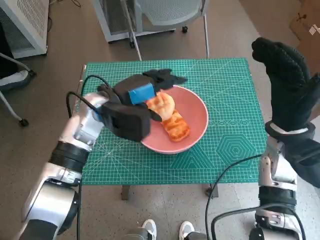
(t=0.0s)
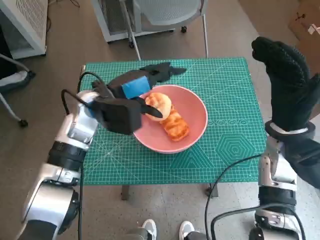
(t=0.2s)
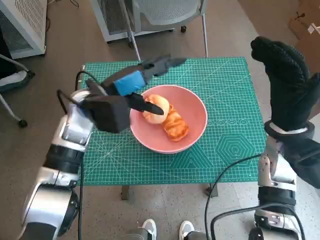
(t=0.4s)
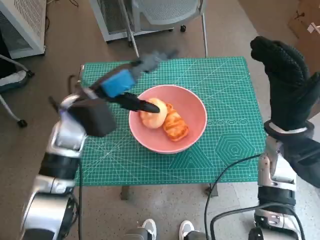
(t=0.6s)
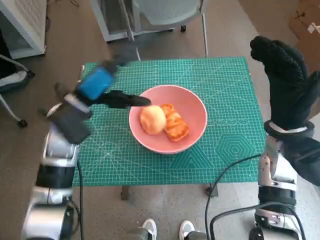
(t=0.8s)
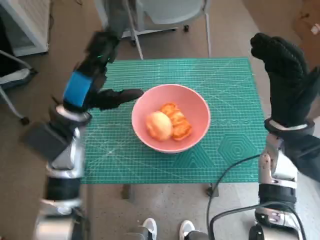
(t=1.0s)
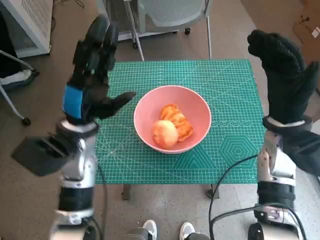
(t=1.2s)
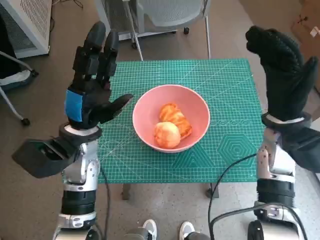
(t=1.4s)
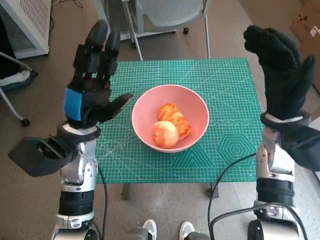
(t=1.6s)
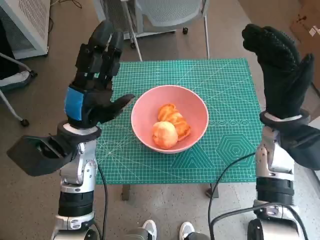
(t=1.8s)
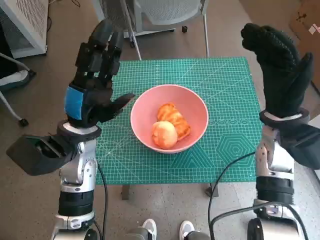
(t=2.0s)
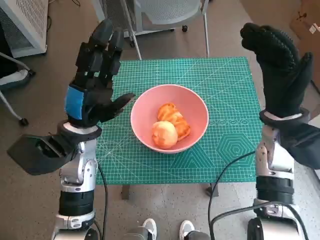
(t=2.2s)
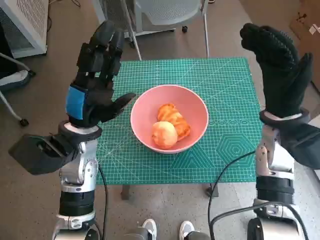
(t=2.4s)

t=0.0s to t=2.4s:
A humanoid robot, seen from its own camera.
t=0.0s to t=1.2s: The left hand shifts approximately 5 cm backward.
t=1.2s to t=2.4s: There are only small adjustments of the hands.

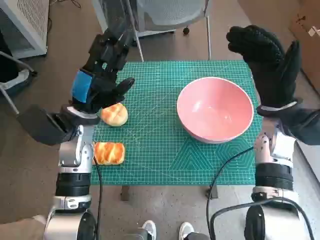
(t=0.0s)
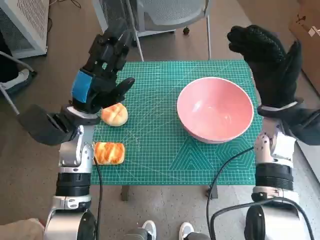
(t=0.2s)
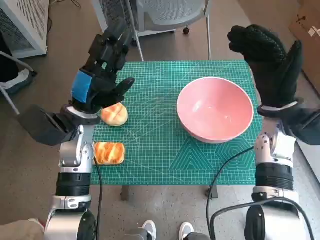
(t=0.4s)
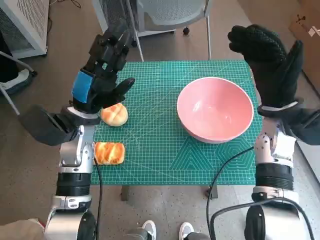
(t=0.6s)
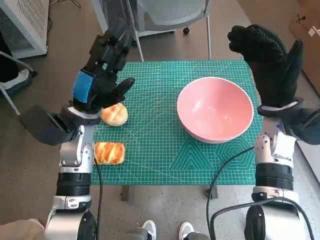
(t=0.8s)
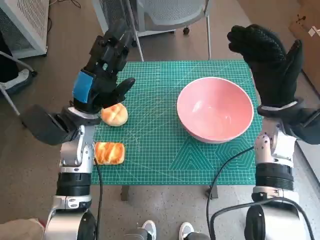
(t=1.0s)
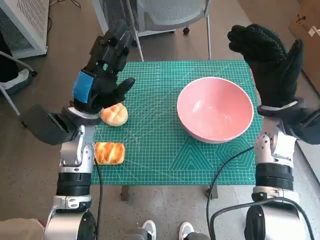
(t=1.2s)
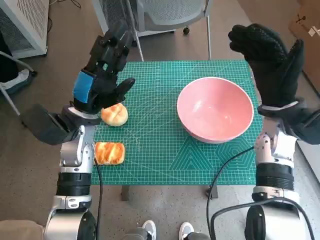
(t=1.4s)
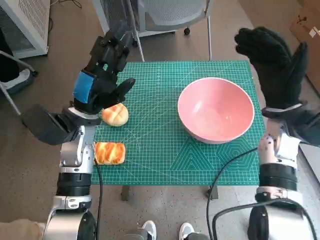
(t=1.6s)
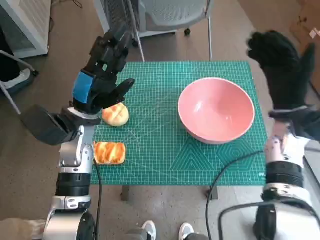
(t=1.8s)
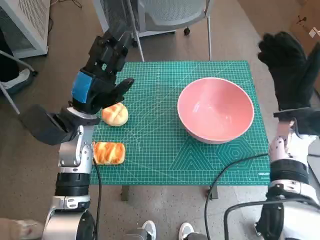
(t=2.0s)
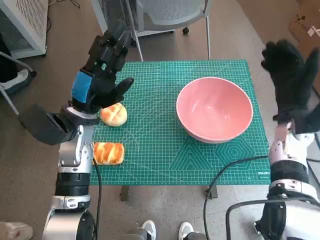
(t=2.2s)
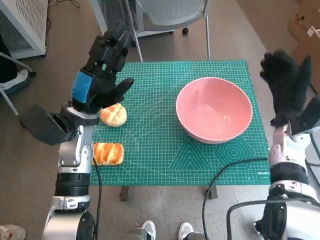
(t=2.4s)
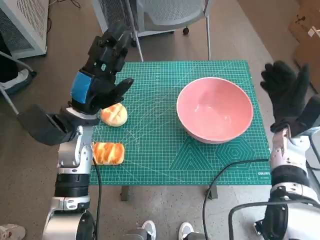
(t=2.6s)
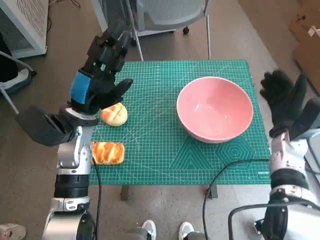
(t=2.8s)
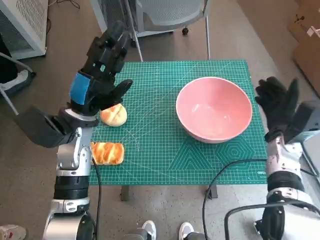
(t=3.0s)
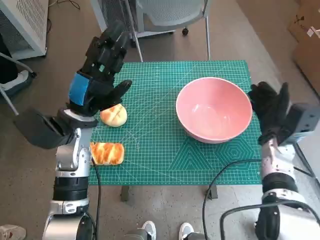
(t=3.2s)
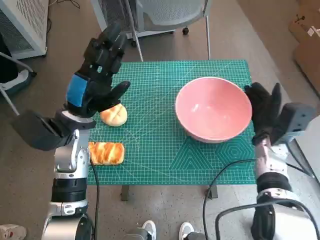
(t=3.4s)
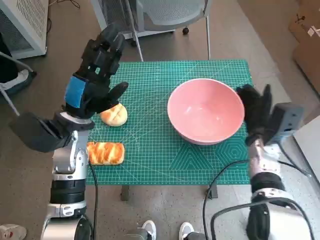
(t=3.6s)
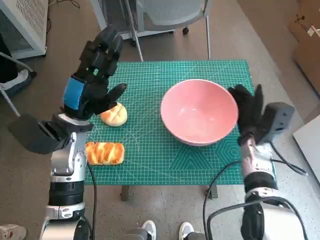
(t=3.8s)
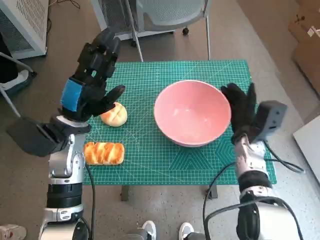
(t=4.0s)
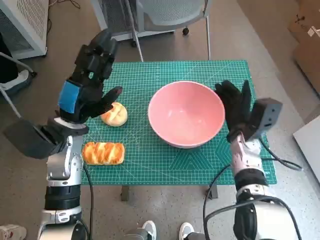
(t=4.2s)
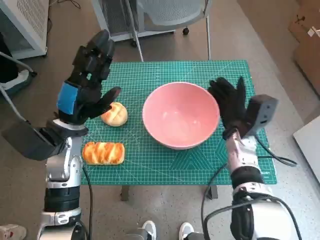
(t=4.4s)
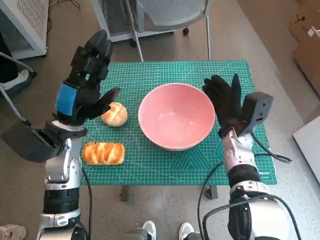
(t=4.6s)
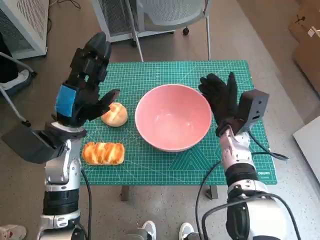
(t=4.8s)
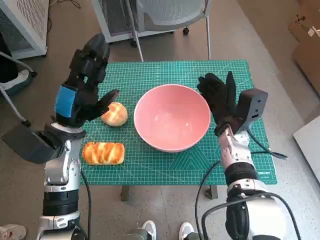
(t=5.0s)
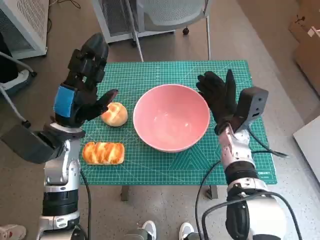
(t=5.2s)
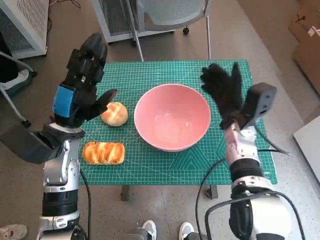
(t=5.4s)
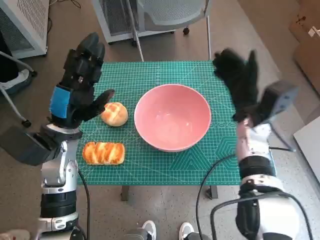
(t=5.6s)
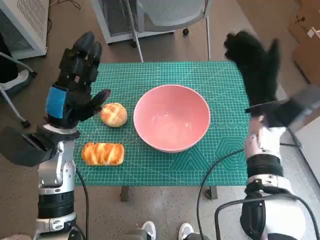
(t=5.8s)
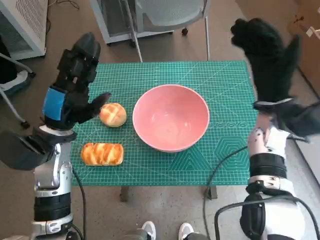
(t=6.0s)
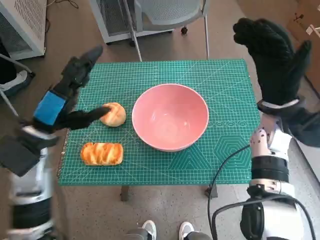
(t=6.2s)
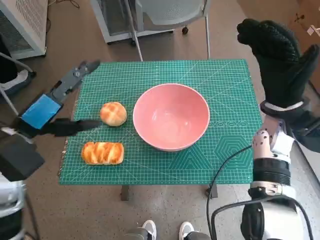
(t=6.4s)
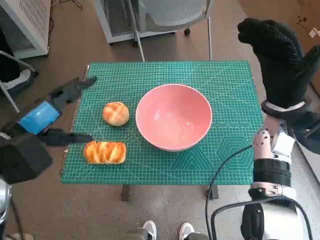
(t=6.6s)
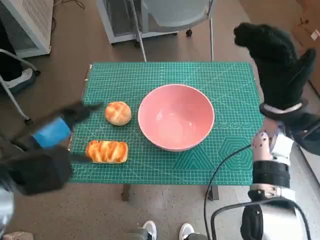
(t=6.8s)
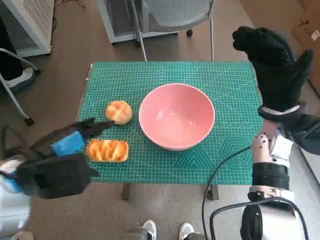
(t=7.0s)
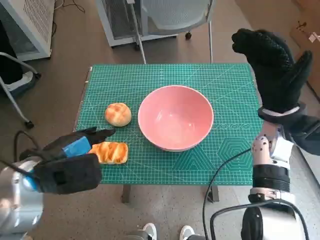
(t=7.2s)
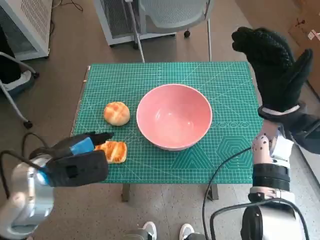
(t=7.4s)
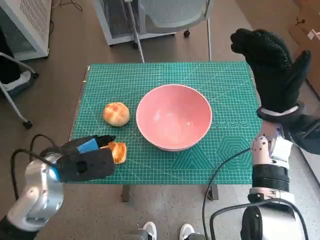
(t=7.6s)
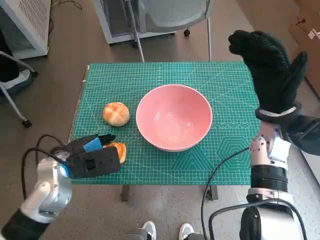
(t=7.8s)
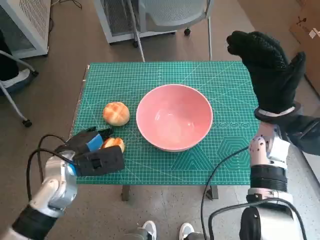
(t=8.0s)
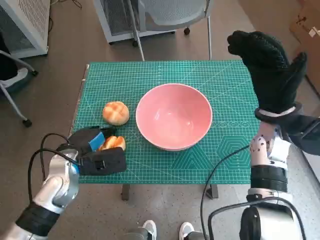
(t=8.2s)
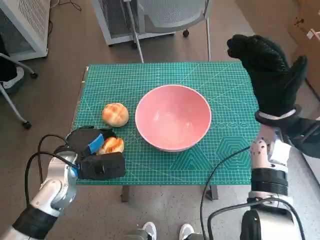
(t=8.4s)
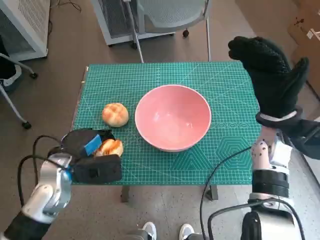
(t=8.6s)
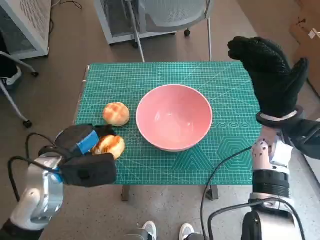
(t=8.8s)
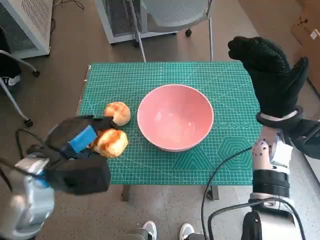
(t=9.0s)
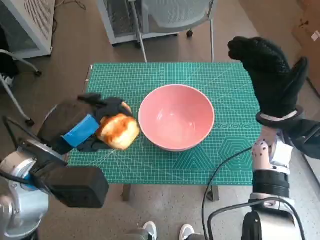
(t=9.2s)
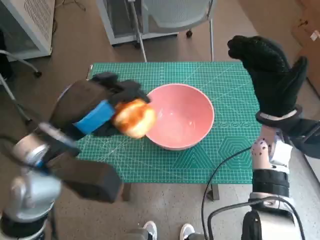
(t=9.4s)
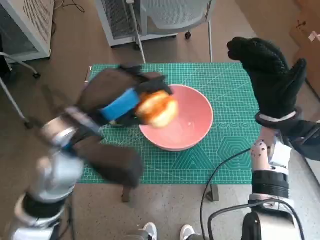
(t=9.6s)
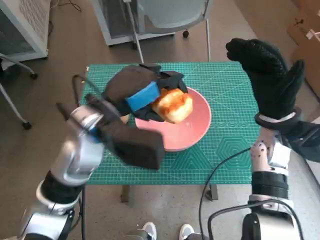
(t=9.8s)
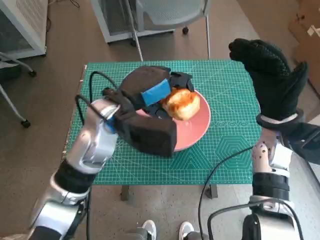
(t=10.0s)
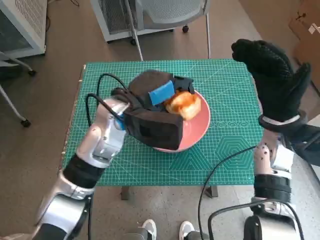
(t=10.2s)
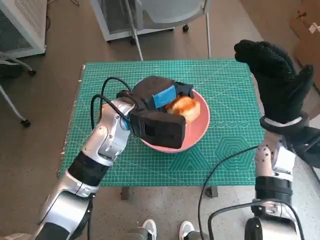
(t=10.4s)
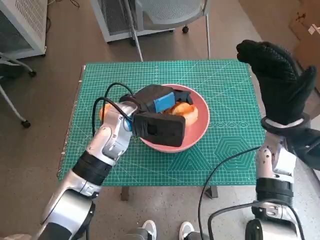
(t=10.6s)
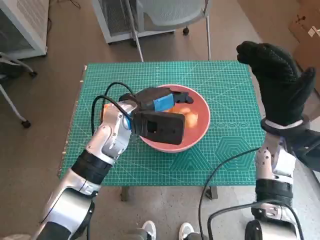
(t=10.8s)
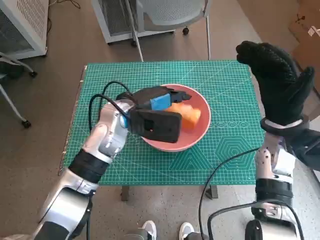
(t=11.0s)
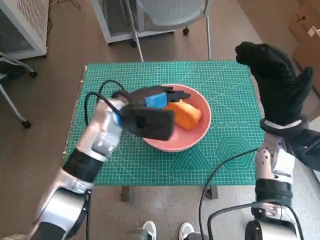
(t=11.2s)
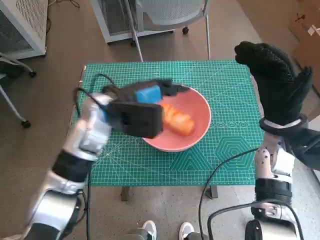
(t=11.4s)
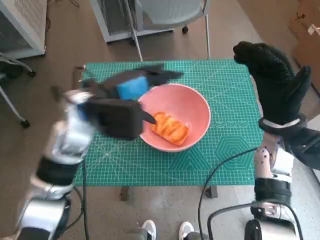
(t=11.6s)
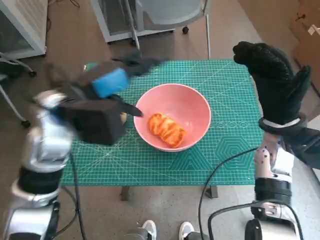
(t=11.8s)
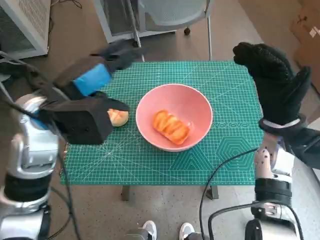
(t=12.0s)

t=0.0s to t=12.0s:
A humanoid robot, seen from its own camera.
Step, t=0.0s to t=5.2s: Move the pink bowl to the center of table with right hand.
Step, t=5.4s to t=8.2s: Grasp the long bread with left hand.
Step, t=8.4s to t=11.0s: Place the long bread in pink bowl with left hand.
t=1.6s to t=3.0s: The right hand travels downward by some 10 cm.
t=3.0s to t=4.4s: The right hand shifts about 10 cm to the left.
t=4.4s to t=6.0s: The right hand travels upward by roughly 10 cm.
t=6.0s to t=7.6s: The left hand reaches some 5 cm upward, then returns.
t=9.0s to t=10.4s: The left hand heads to the right and forward, covering approximately 15 cm.
t=10.4s to t=12.0s: The left hand travels to the left and upward by approximately 10 cm.

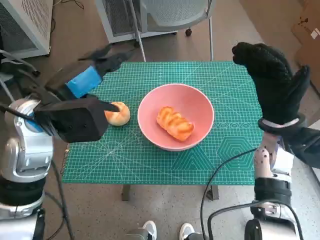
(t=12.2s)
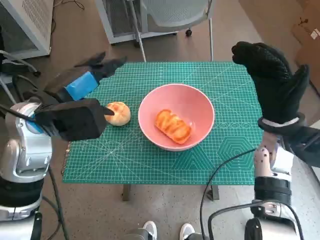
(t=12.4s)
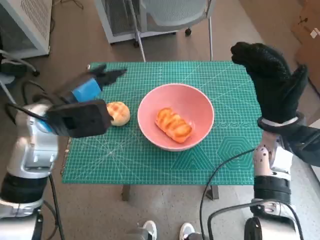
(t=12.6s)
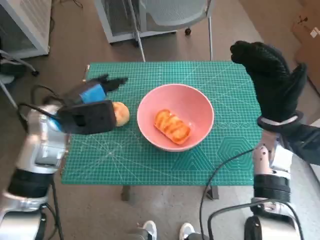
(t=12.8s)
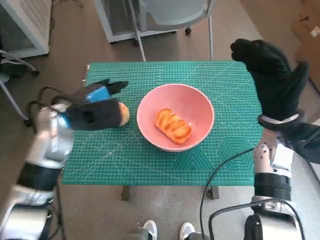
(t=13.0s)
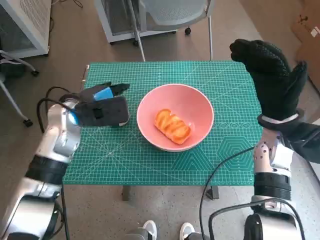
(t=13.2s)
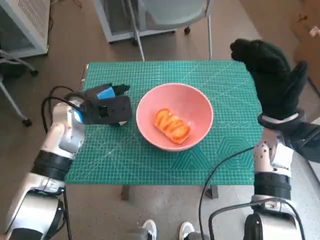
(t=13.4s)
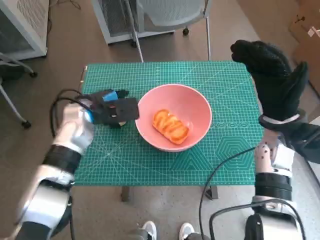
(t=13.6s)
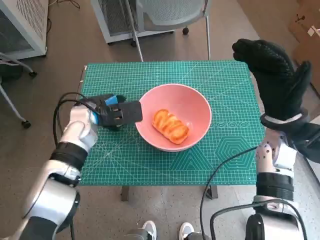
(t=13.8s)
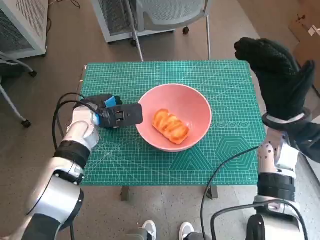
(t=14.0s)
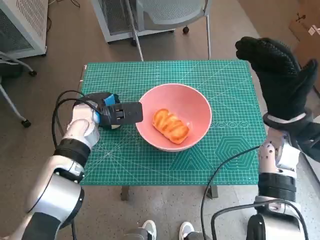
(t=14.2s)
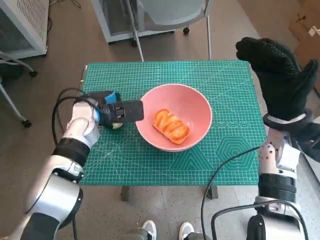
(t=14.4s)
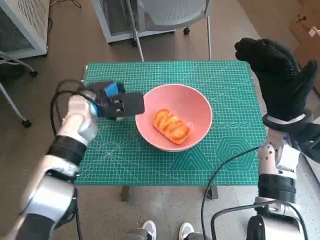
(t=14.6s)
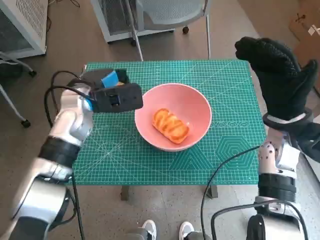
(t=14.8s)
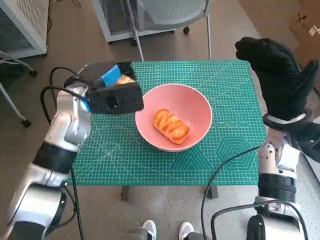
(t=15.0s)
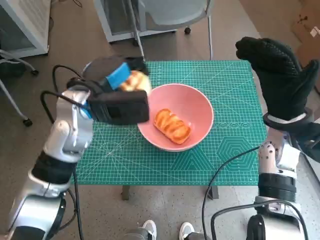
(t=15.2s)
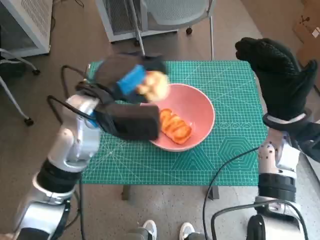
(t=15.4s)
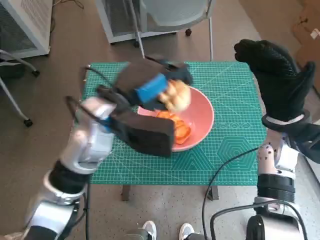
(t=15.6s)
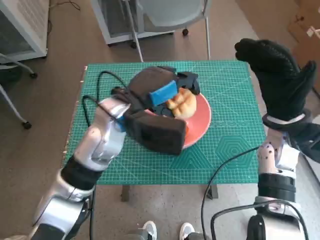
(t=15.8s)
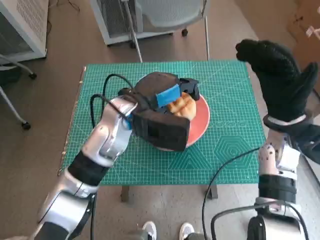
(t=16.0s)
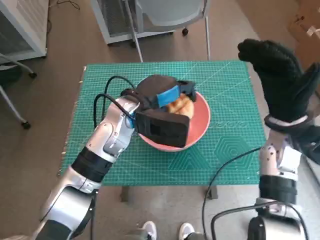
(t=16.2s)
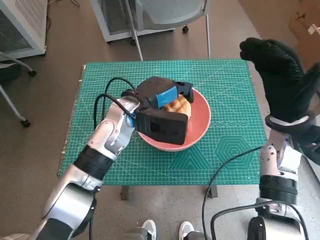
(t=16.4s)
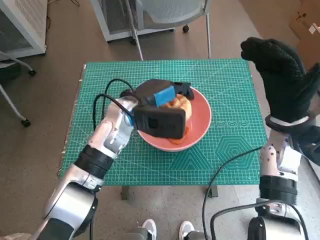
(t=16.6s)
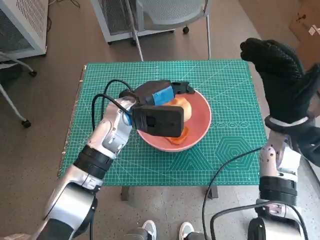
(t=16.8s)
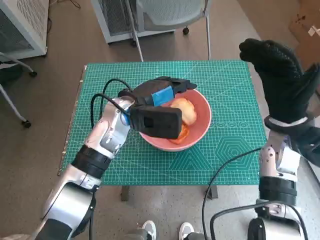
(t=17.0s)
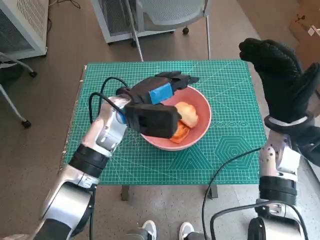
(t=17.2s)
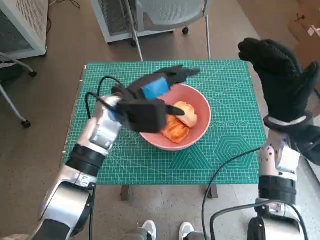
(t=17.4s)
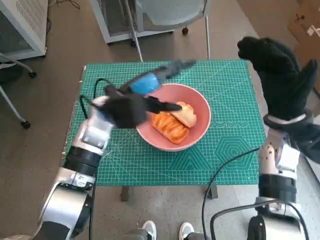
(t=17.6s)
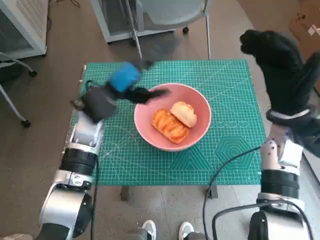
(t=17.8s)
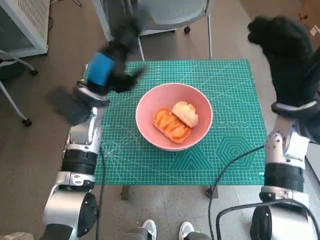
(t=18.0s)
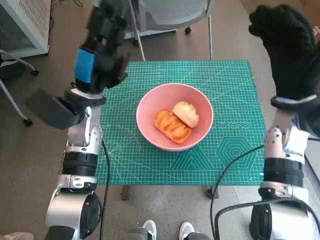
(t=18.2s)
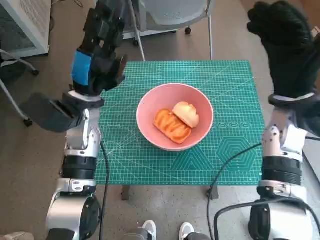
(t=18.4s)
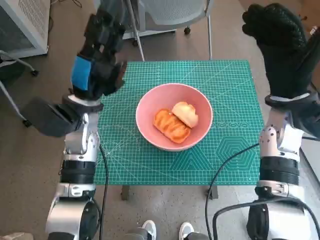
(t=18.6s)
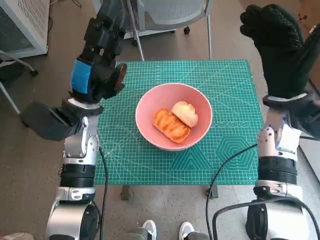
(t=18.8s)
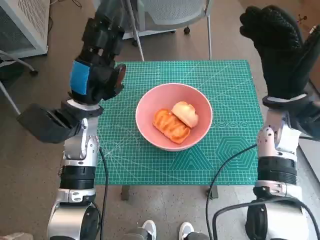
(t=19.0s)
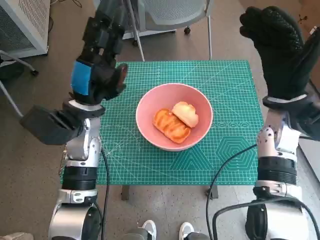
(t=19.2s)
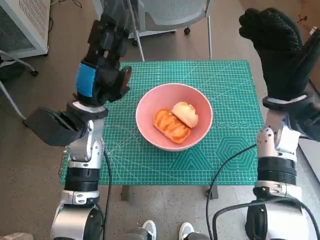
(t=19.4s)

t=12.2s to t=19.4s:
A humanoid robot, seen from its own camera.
Step, t=12.2s to t=14.2s: Grasp the round bread with left hand.
Step, t=14.4s to t=17.0s: Place the round bread in pink bowl with left hand.
t=12.2s to t=13.6s: The left hand goes approximately 15 cm downward and forward.
t=13.6s to t=15.0s: The left hand moves upward, approximately 5 cm.
t=15.0s to t=16.6s: The left hand is displaced to the right by some 10 cm.
t=16.6s to t=18.0s: The left hand goes approximately 10 cm to the left.
